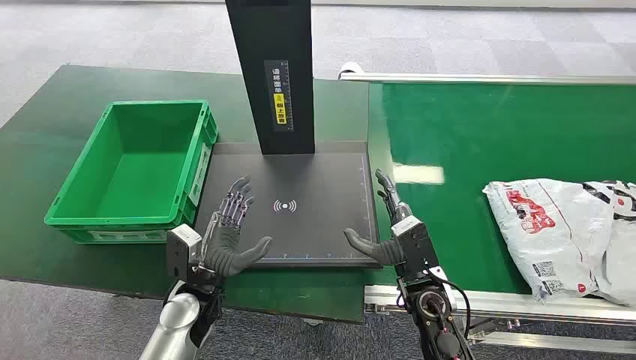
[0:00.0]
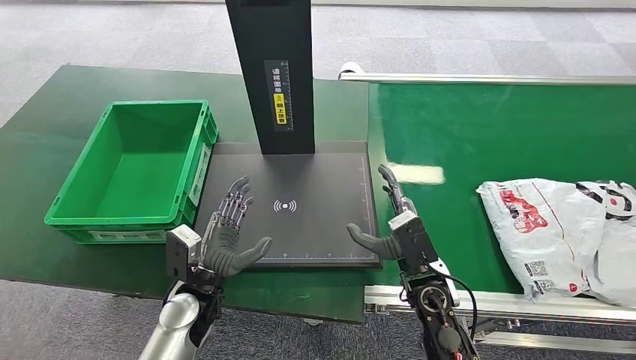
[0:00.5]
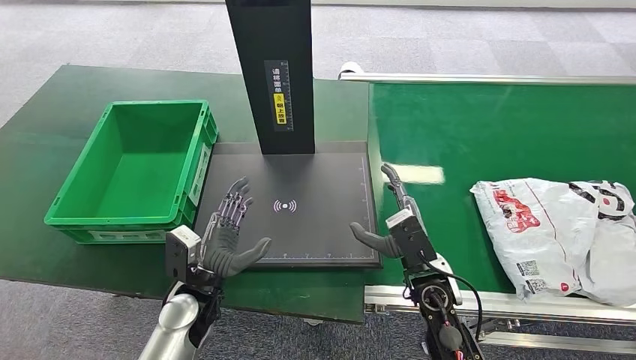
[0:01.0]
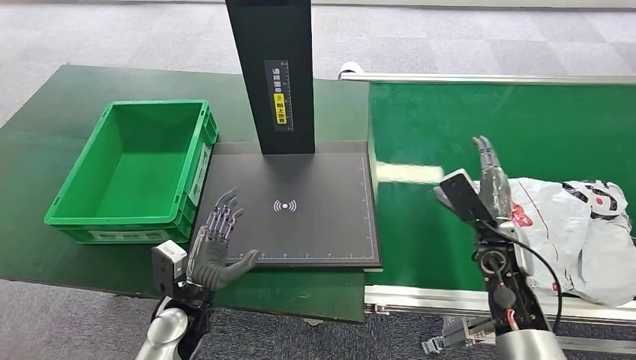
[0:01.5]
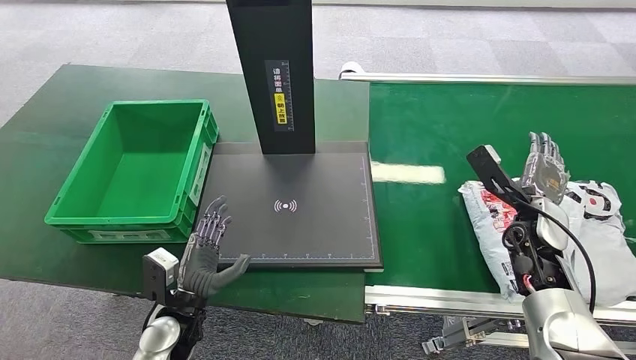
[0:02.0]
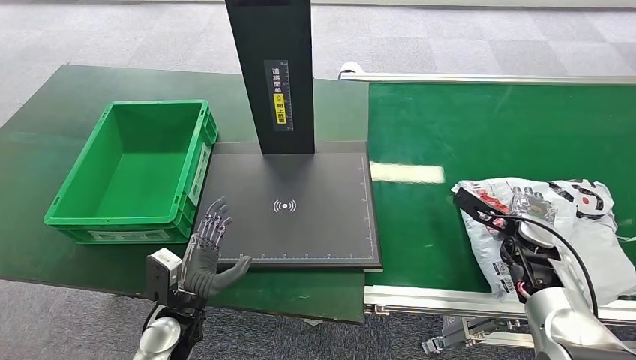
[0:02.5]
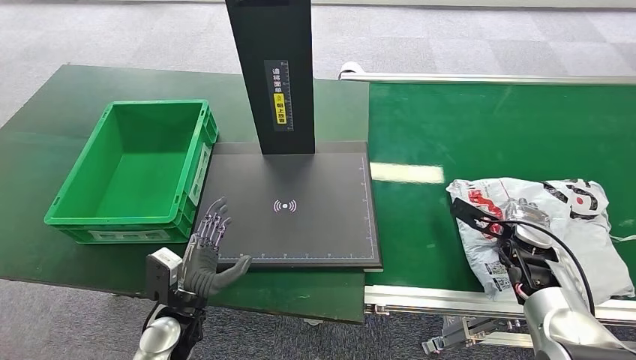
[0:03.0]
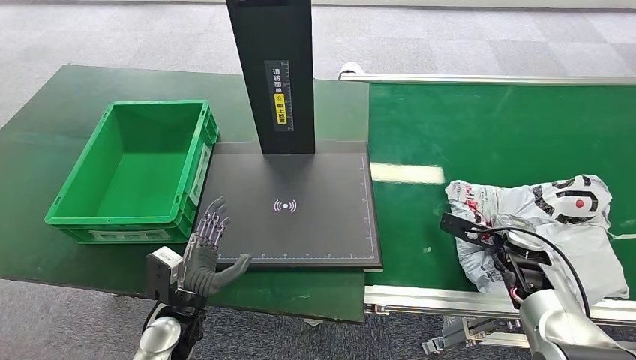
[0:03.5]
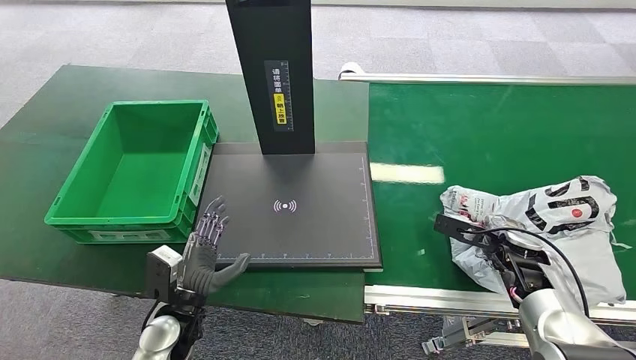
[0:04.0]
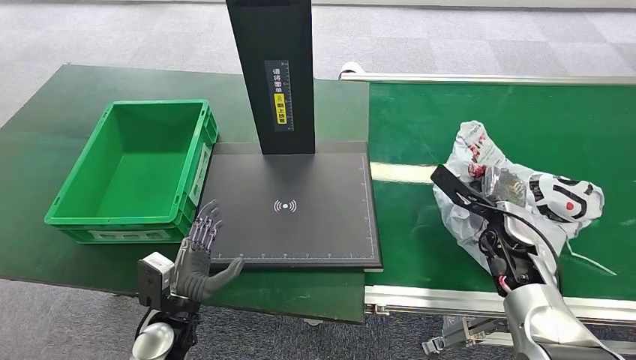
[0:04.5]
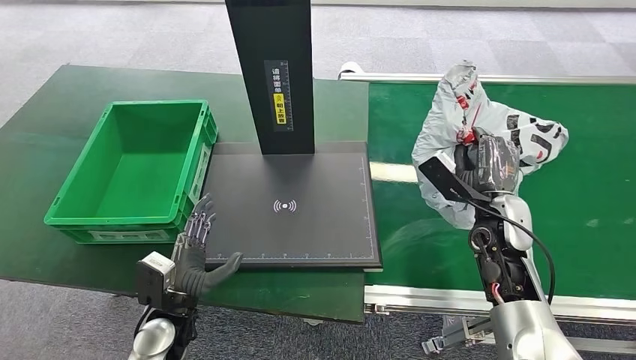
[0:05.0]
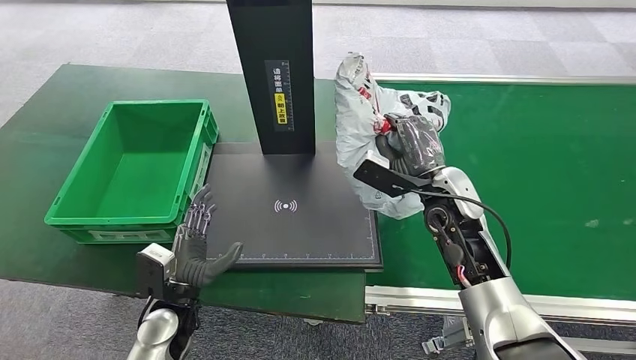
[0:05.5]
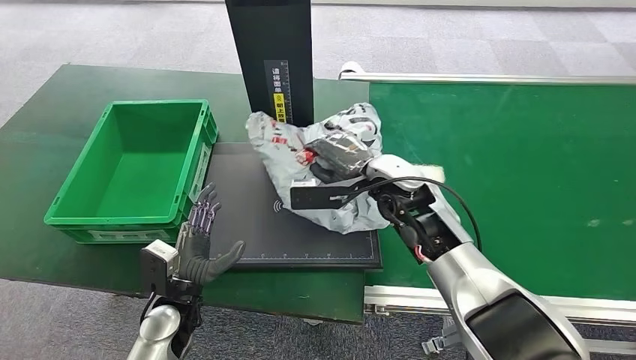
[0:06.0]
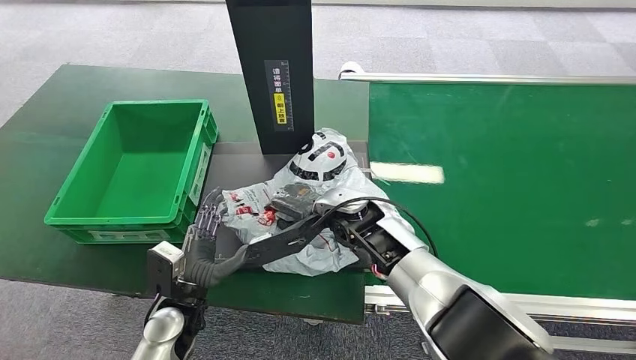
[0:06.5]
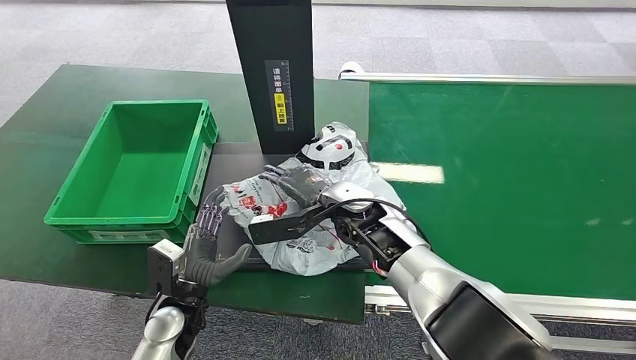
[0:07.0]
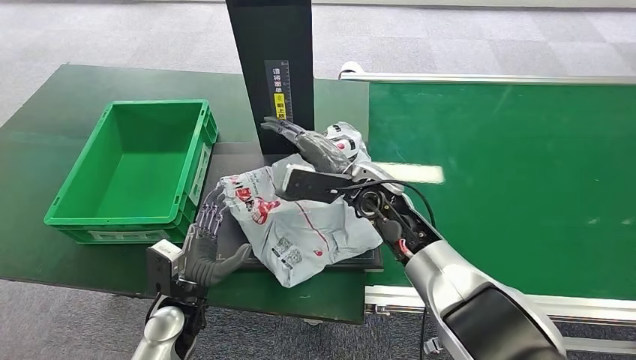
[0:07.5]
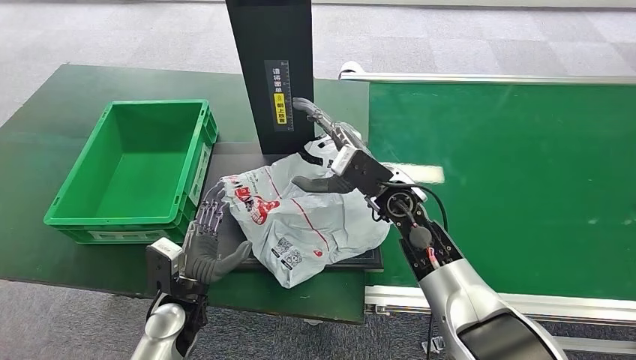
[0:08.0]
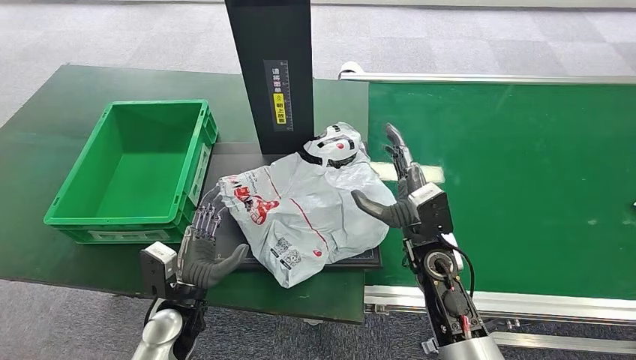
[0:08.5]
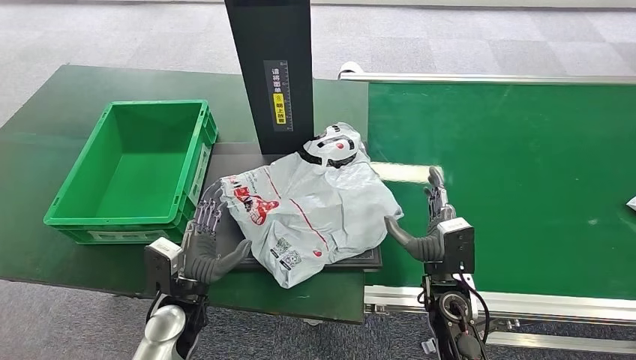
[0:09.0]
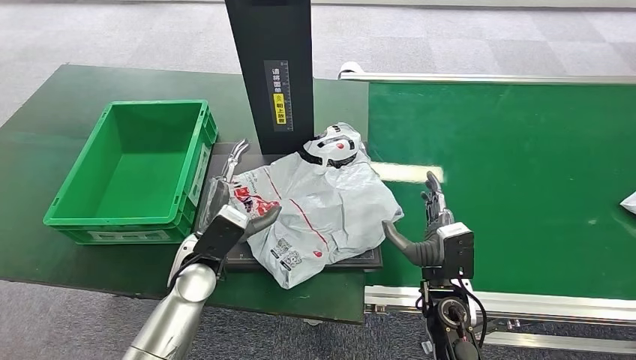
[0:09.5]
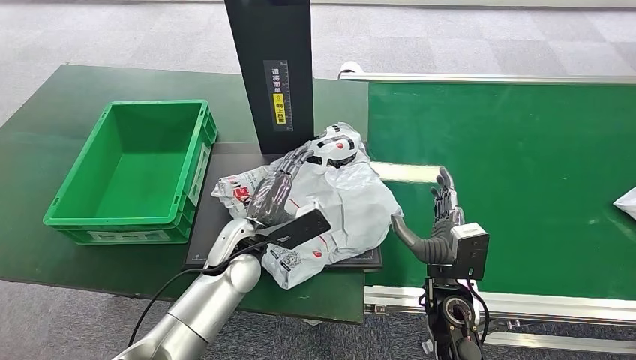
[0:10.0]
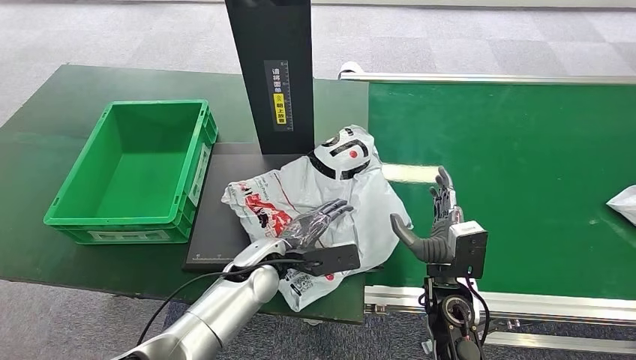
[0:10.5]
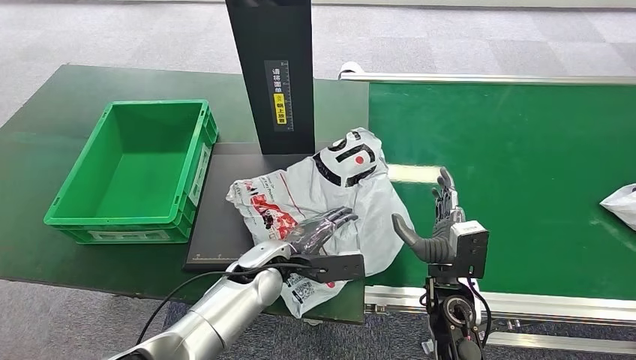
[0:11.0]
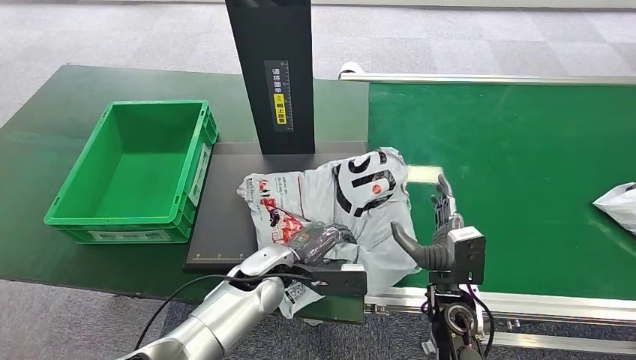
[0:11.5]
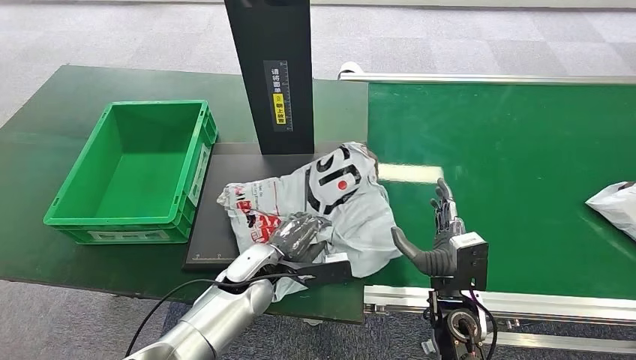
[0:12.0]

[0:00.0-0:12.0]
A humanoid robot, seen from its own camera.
Step, 0:00.0 to 0:05.0: Pick up the package from the conveyor belt.
Step, 0:05.5 to 0:07.5: Place the package onto the inbound machine.
0:02.0 to 0:04.0: The right hand travels downward by about 5 cm.
0:08.0 to 0:10.0: The right hand moves backward, downward and to the right, about 20 cm, while the left hand heads to the right, forward and upward, covering about 15 cm.
0:10.0 to 0:12.0: The left hand travels downward by roughly 5 cm.

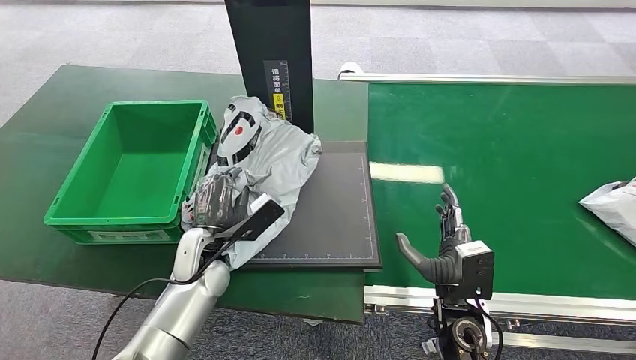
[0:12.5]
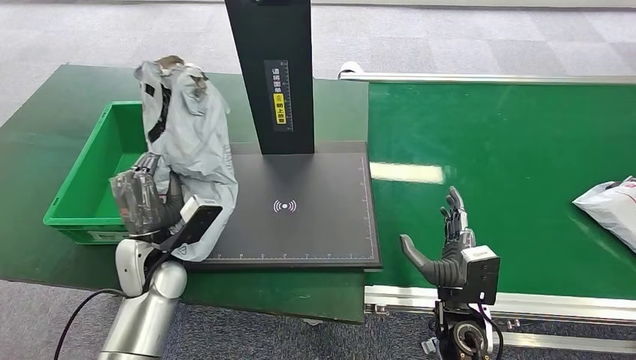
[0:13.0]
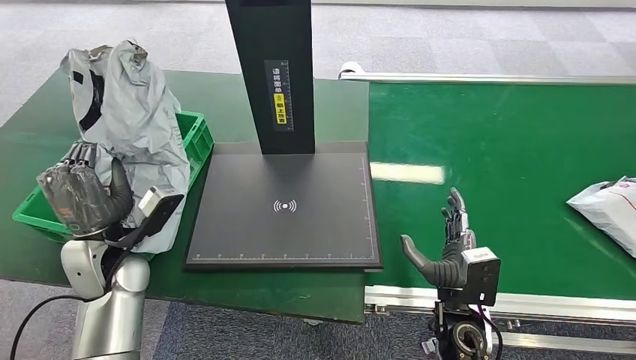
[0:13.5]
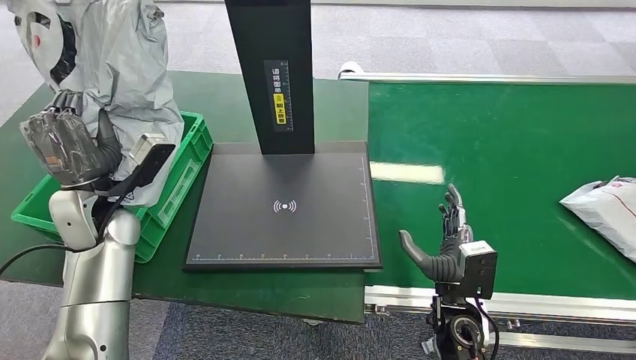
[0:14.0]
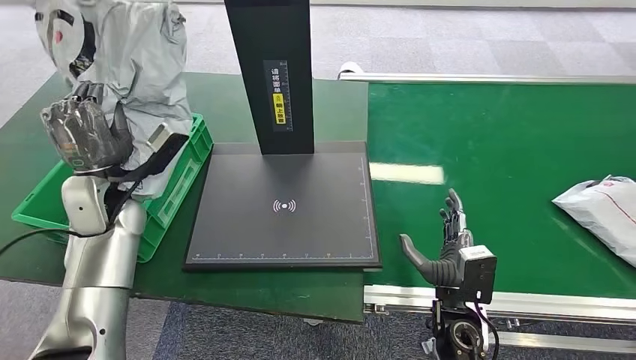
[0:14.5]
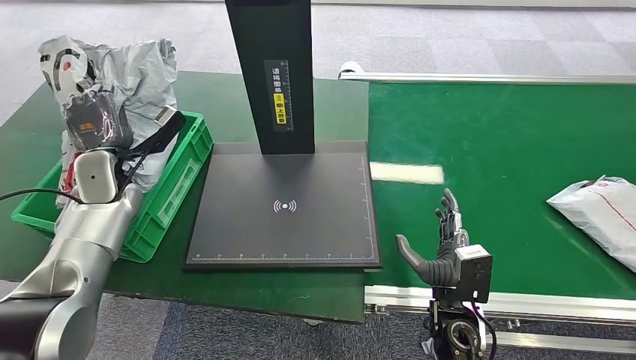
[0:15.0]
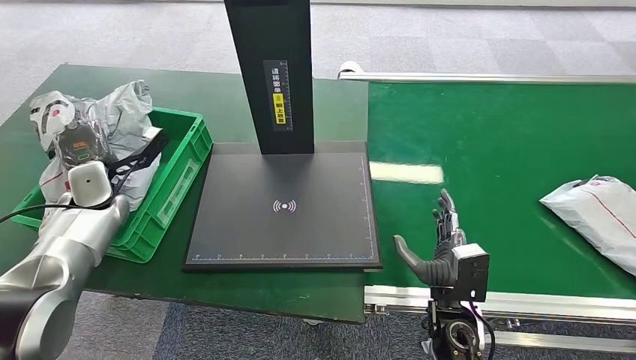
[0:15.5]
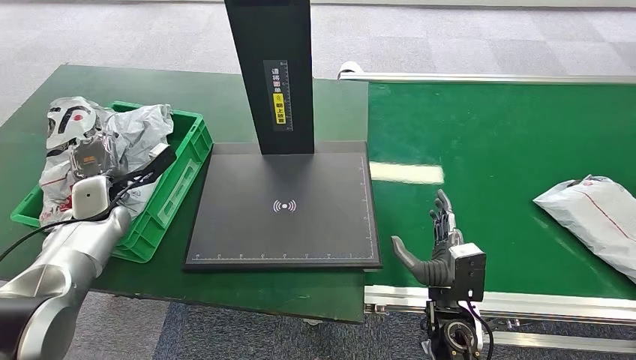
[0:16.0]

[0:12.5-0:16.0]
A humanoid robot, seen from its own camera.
Step, 0:13.0 to 0:16.0: Place the package into the parcel locker.
